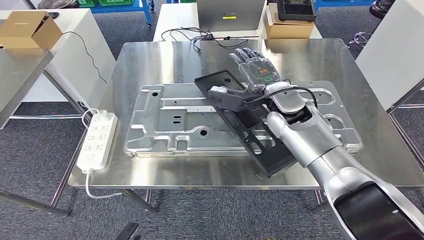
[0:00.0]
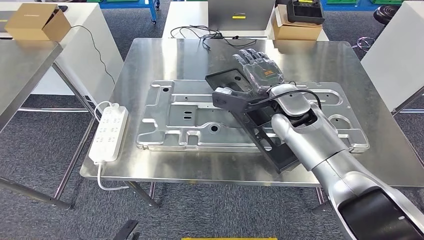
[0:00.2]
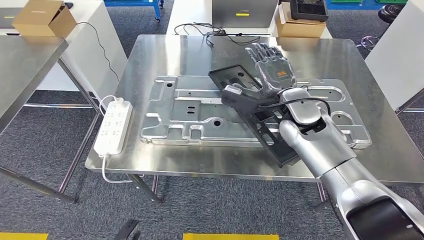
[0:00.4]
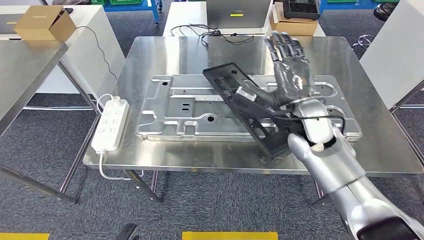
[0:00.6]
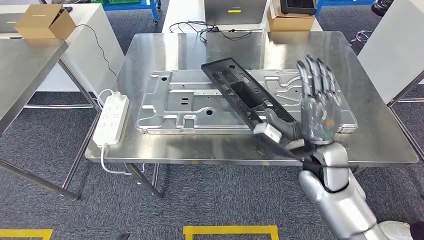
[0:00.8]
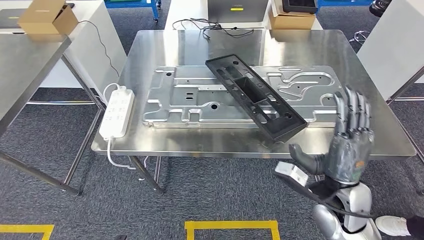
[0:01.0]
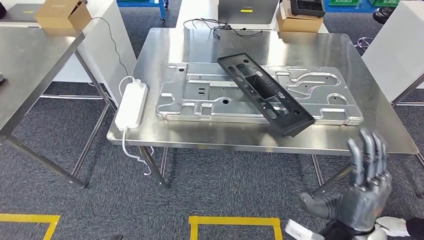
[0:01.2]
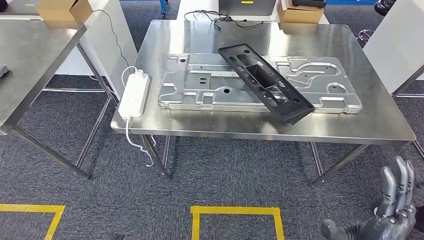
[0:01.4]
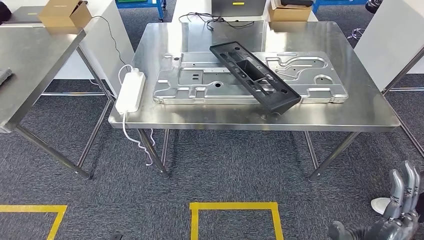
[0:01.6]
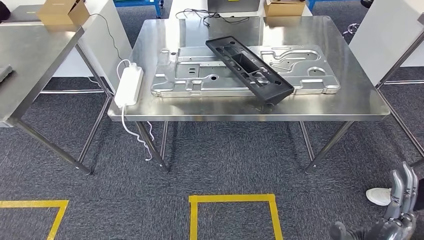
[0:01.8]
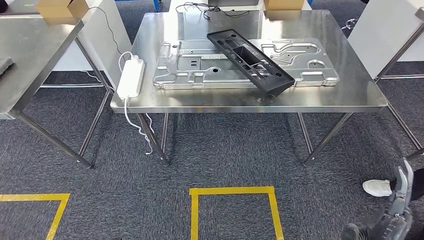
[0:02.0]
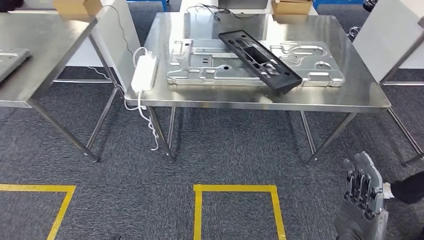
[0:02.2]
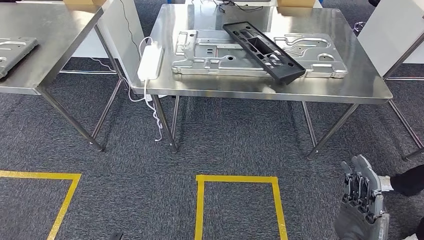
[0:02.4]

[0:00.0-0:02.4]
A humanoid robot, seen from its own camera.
Step, 0:00.0 to 0:02.4: Move to the initial position of the shelf.
